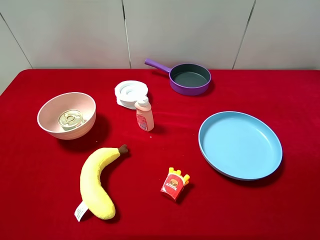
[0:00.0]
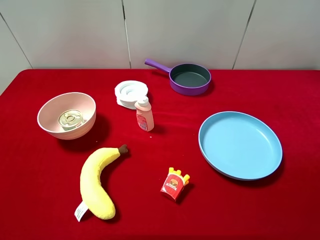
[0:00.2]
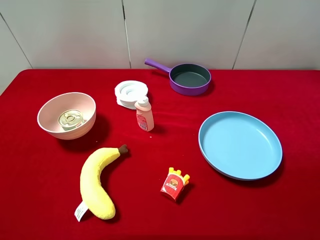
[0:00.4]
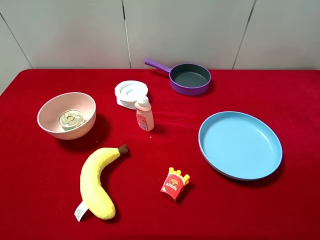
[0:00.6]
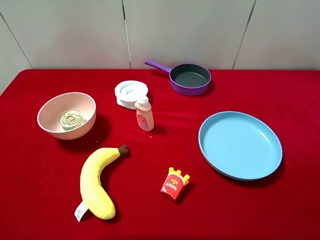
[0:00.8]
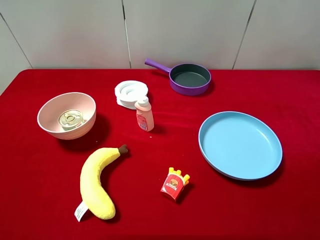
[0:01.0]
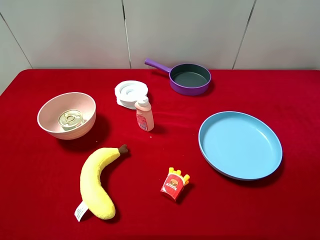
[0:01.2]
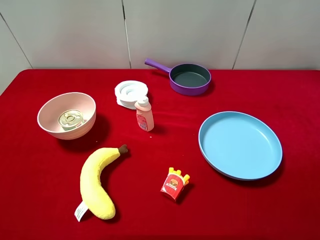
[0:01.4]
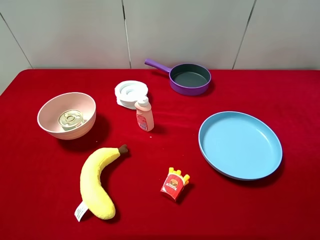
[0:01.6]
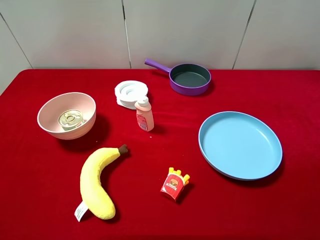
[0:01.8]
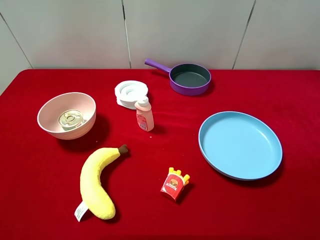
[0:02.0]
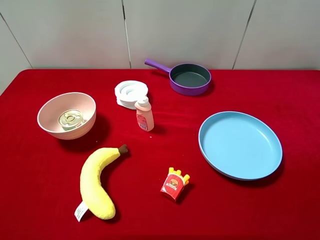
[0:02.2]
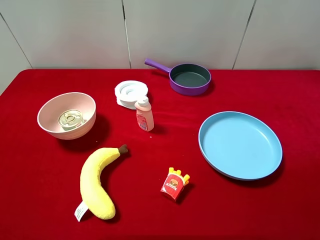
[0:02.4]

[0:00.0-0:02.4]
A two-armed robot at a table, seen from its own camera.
Task of the whole recording: pick up an item with a gripper and place it in a random container on the desktop.
0:01.2 to 0:02.4: Both grippers stay put.

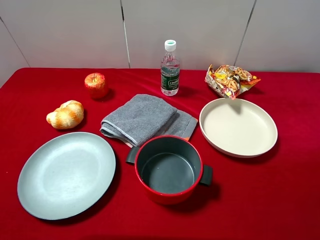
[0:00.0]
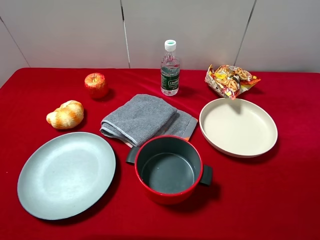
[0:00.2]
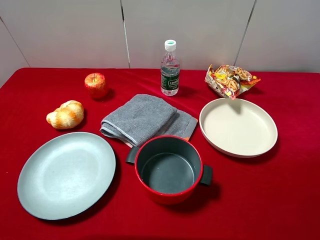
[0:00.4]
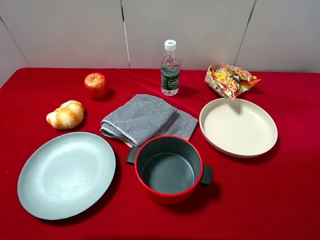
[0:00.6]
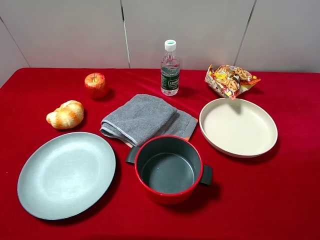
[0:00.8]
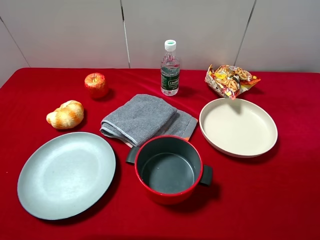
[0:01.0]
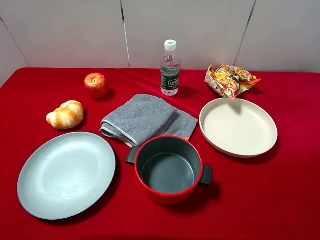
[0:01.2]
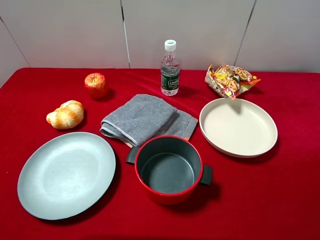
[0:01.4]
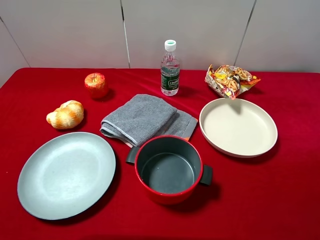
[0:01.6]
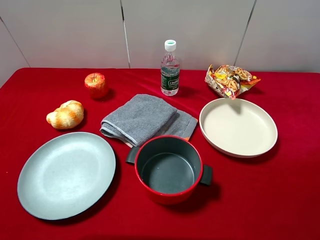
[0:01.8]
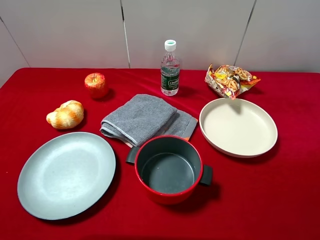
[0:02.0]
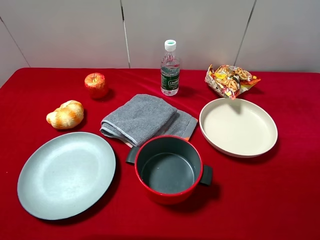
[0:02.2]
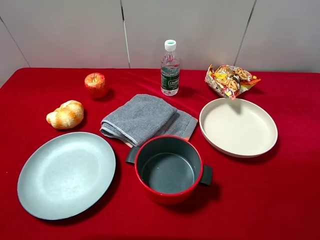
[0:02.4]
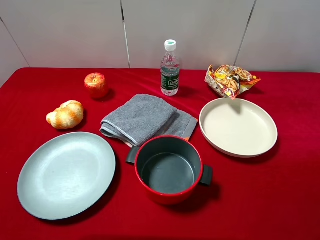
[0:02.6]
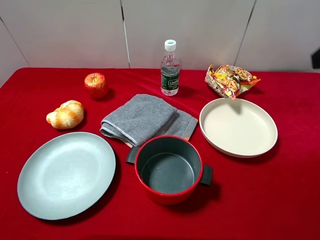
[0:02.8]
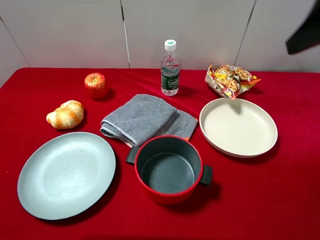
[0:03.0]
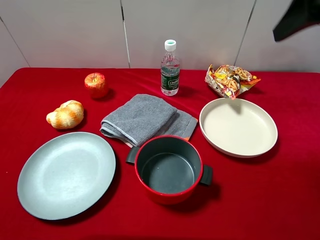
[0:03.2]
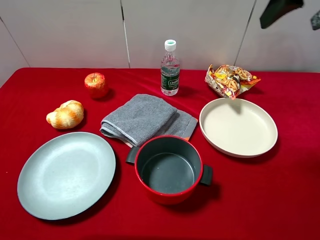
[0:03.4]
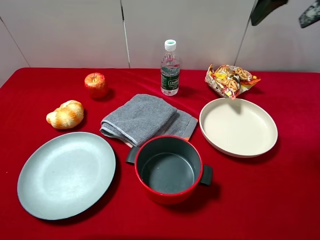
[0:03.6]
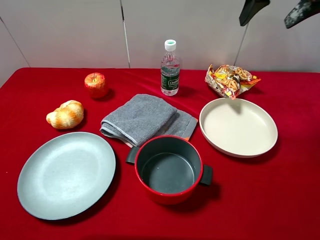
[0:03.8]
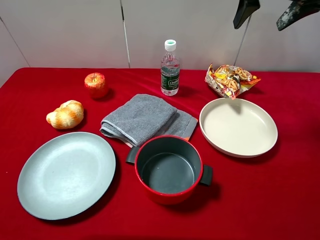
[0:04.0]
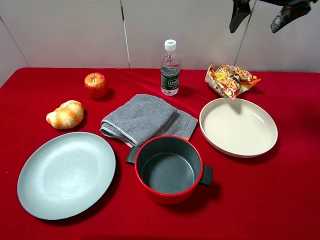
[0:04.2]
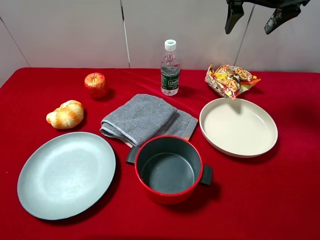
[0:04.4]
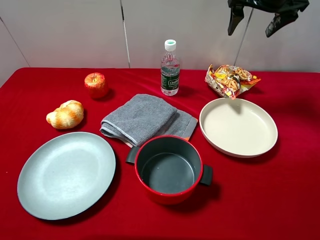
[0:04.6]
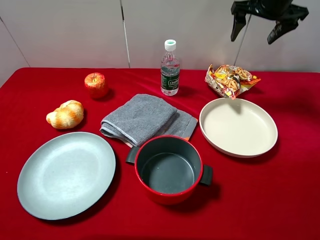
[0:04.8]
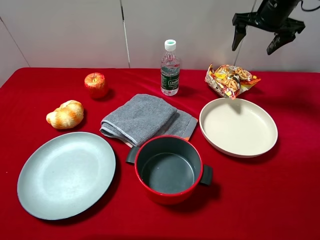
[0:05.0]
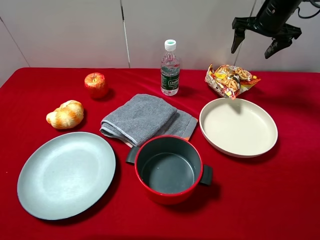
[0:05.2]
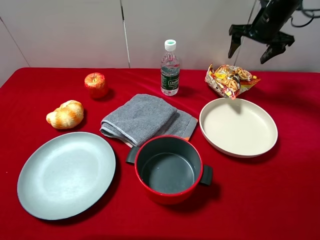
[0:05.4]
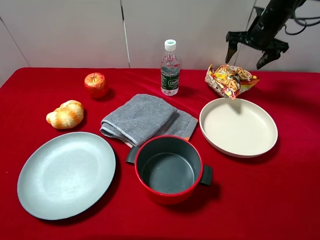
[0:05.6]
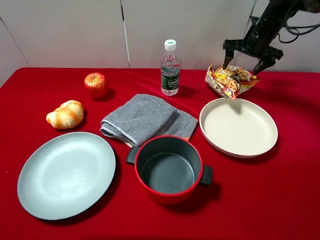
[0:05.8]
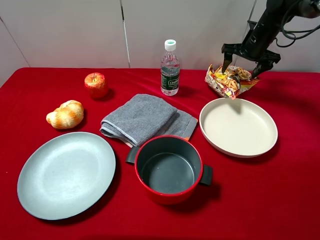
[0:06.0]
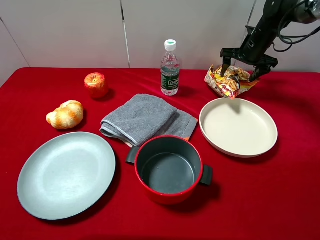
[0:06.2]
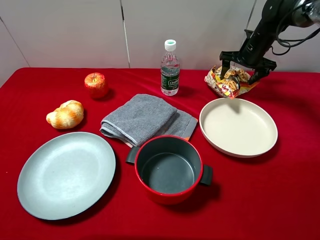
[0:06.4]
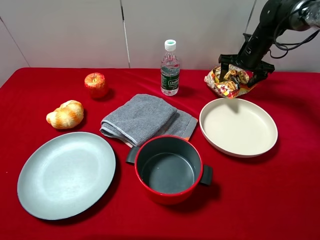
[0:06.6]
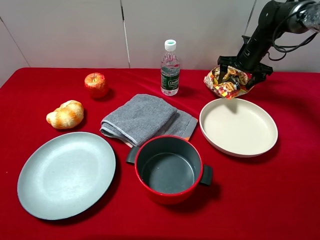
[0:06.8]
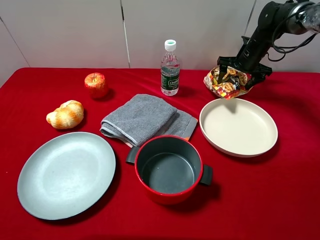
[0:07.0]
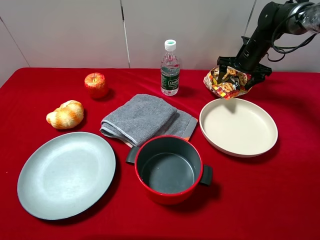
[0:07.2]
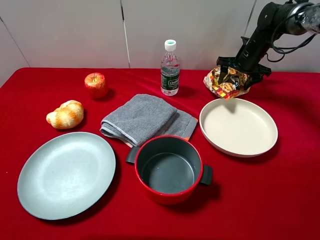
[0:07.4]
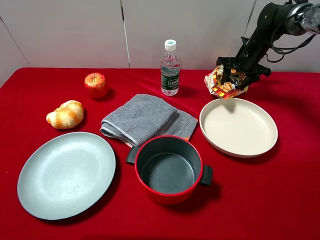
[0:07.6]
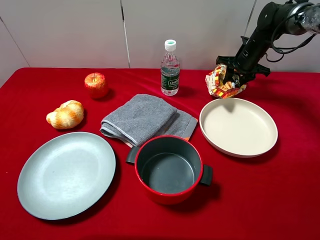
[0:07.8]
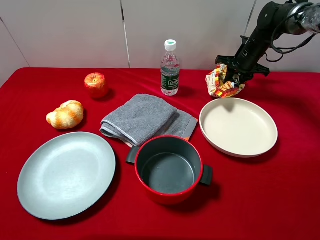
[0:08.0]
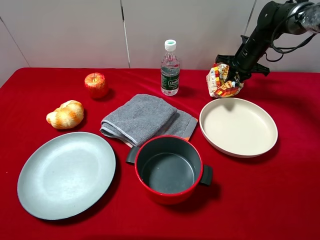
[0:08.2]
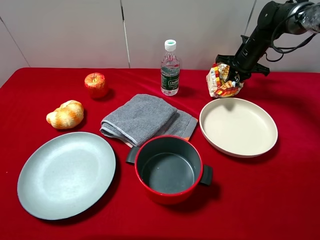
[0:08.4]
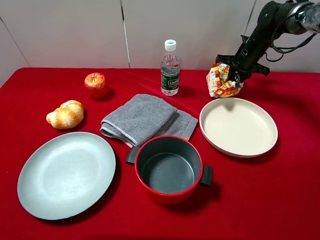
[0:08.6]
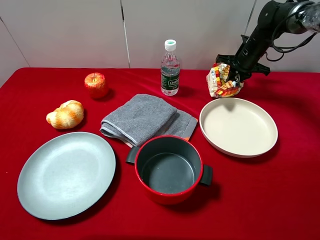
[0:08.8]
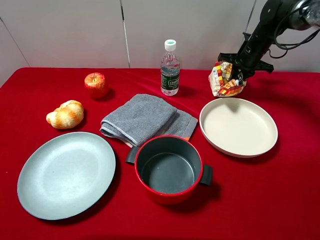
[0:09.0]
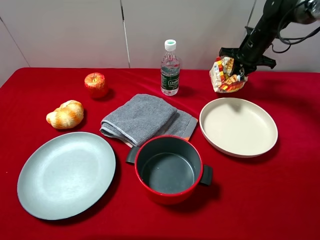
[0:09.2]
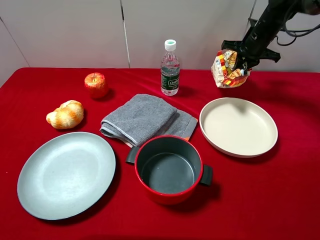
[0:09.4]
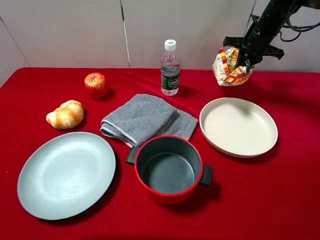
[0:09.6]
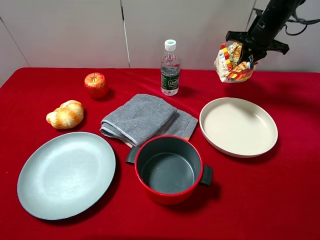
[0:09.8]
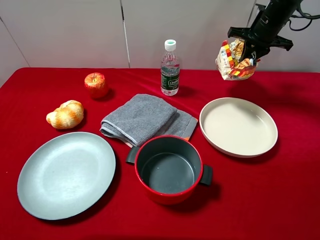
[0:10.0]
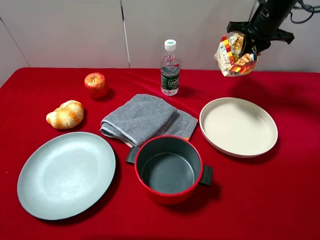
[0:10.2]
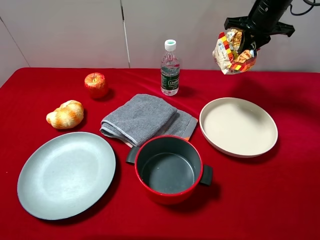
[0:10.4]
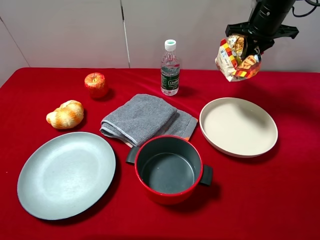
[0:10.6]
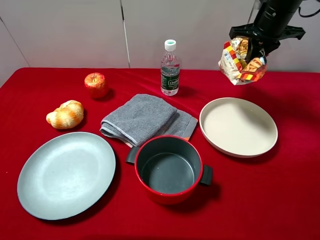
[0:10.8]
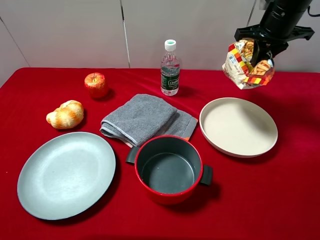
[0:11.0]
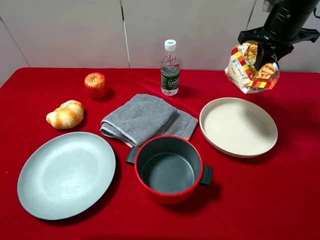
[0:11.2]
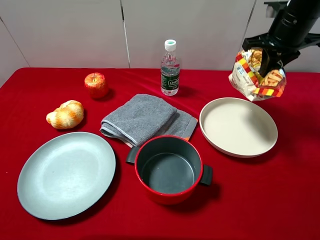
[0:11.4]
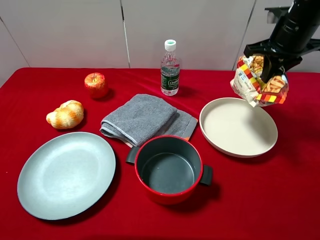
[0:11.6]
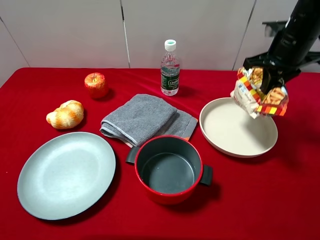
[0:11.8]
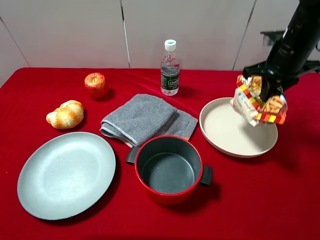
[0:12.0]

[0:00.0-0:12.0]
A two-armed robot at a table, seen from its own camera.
Task of the whole recording: pick up an item with a gripper and place it in a random container on the desktop.
0:01.6 to 0:03.0: The right gripper heads forward, covering some 20 cm.
0:03.0 to 0:04.4: The right gripper travels forward by roughly 20 cm.
0:04.4 to 0:06.0: The right gripper is displaced downward and forward by some 20 cm.
0:06.0 to 0:07.6: The right gripper closes its fingers.
0:07.6 to 0:09.0: The right gripper closes up.
0:09.0 to 0:10.4: The right gripper goes some 10 cm upward.
0:10.4 to 0:12.0: The right gripper goes about 10 cm backward.

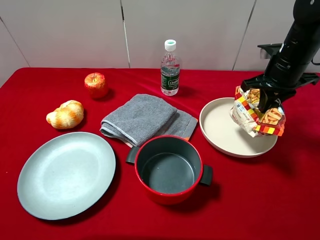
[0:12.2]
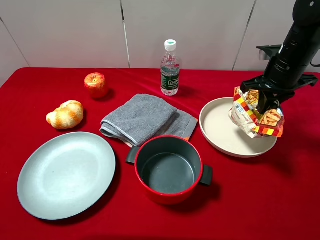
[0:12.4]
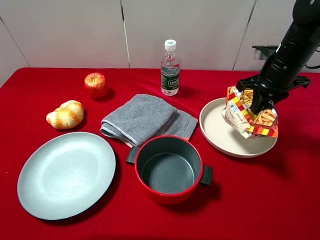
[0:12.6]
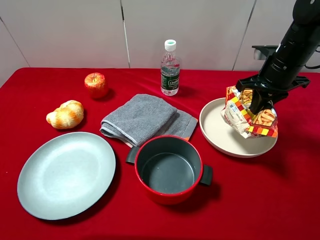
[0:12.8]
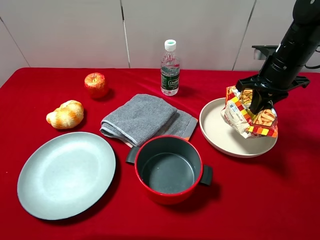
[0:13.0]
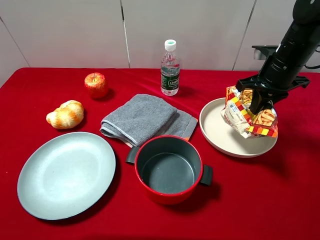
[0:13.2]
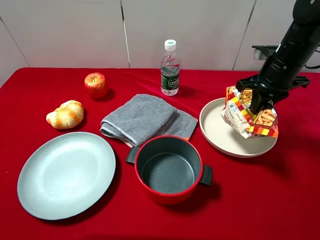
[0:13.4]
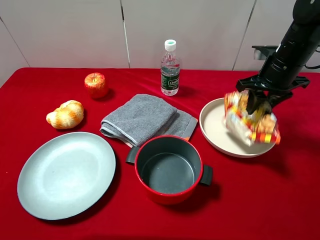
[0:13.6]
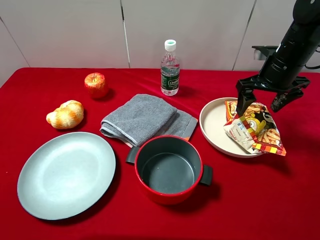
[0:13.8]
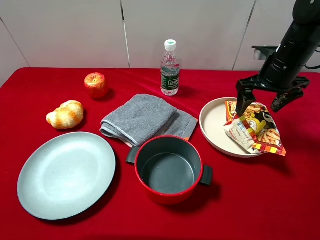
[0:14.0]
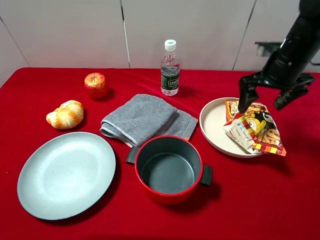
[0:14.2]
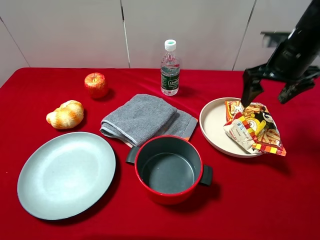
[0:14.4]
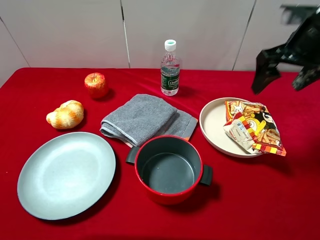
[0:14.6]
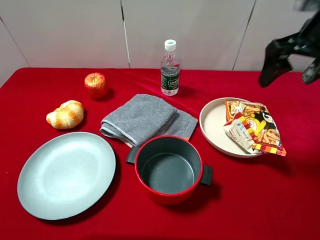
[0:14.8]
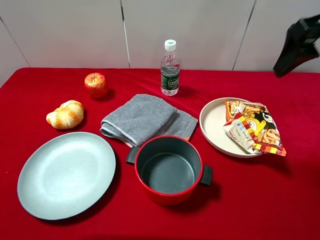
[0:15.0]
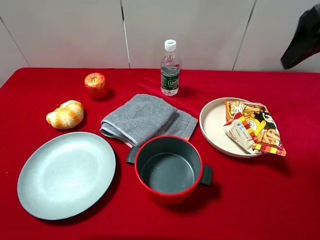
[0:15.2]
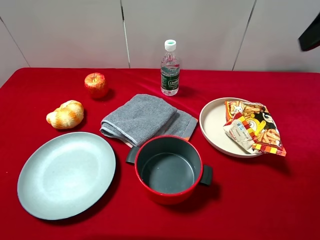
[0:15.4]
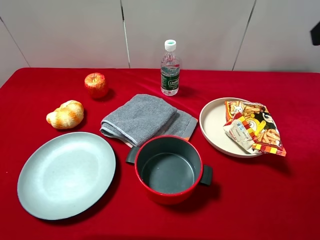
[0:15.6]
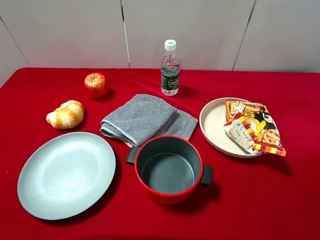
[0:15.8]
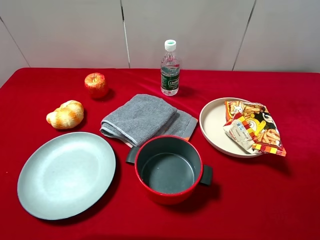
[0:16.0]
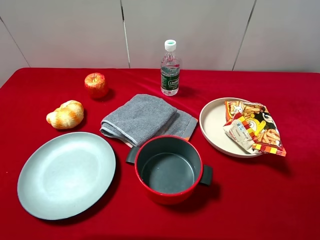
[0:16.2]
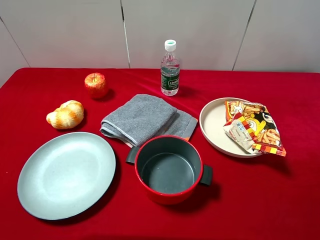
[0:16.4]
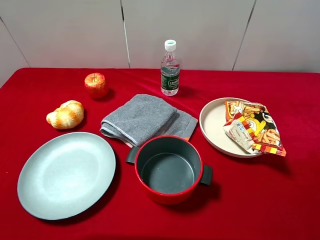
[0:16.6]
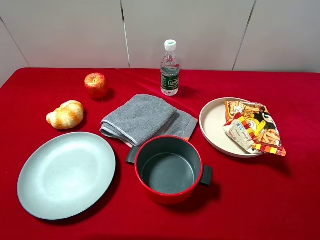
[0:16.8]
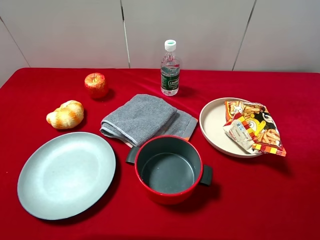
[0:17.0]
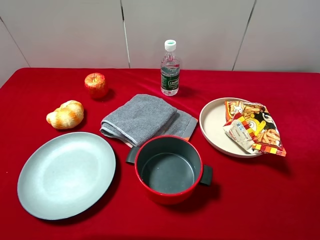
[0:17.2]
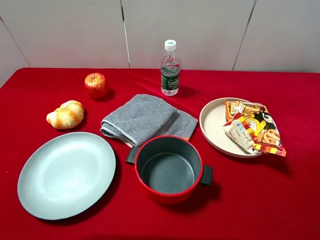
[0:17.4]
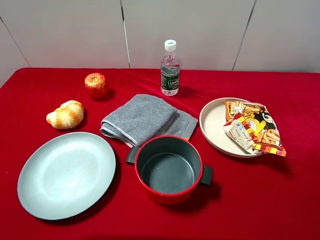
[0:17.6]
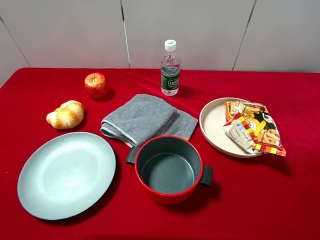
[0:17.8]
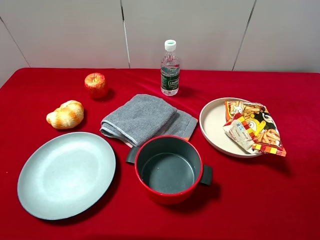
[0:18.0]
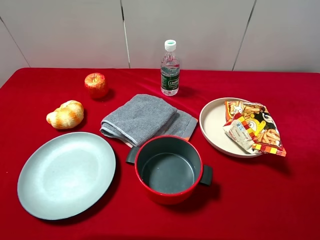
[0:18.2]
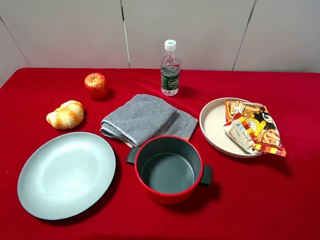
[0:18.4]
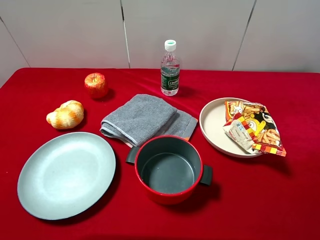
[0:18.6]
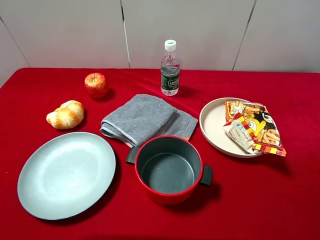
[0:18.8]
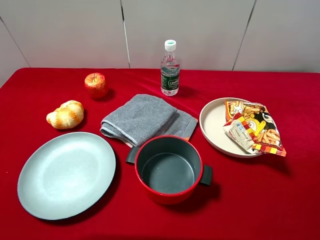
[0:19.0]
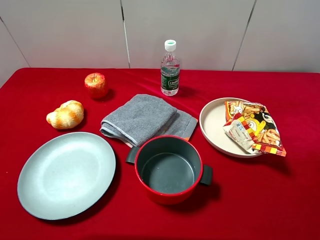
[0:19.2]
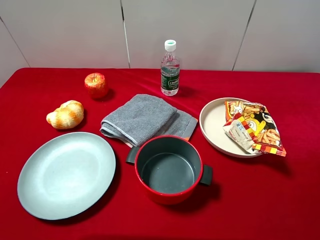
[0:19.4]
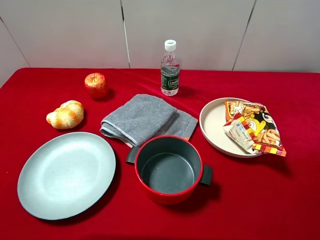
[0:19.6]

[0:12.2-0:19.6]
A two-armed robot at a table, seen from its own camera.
Task of the whole recording: pick up an item with a gripper and place it in a random container on the desktop.
0:12.2 to 0:13.6: The right gripper opens its fingers.
0:13.6 to 0:15.2: The right gripper heads upward and backward, covering some 20 cm, and opens up.
0:15.2 to 0:16.6: The right gripper goes approximately 20 cm backward.
